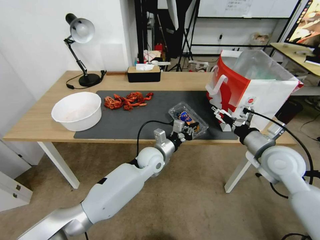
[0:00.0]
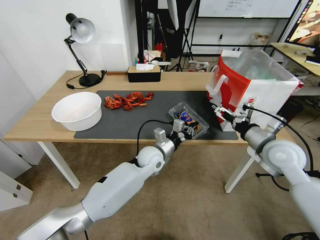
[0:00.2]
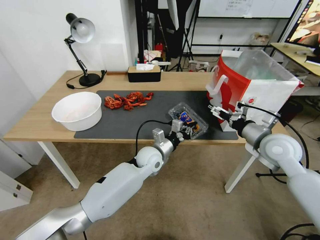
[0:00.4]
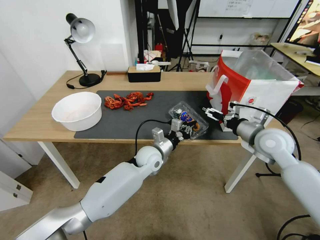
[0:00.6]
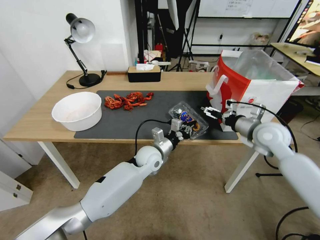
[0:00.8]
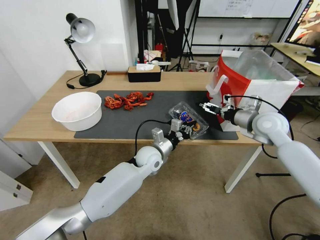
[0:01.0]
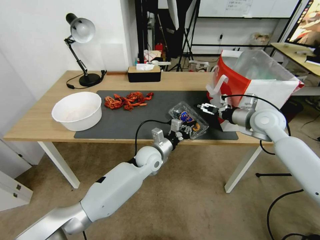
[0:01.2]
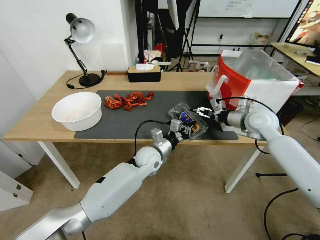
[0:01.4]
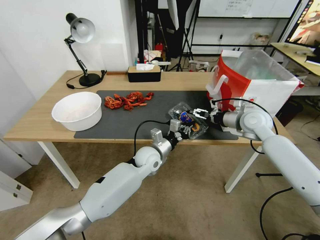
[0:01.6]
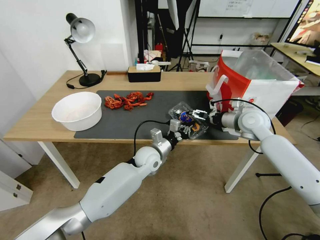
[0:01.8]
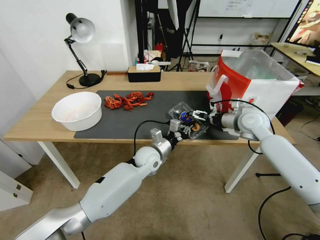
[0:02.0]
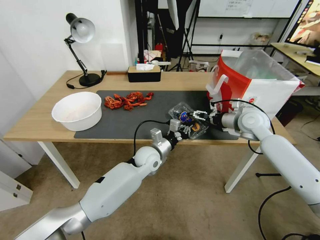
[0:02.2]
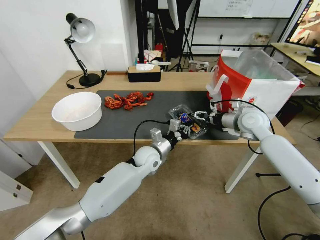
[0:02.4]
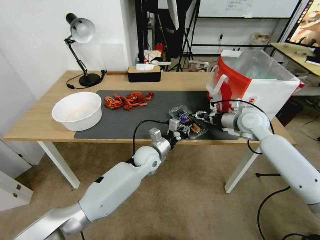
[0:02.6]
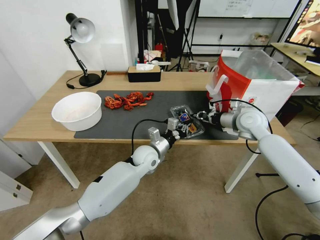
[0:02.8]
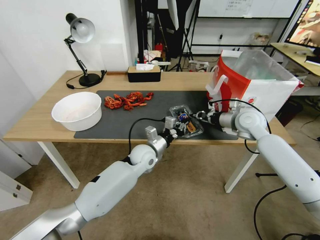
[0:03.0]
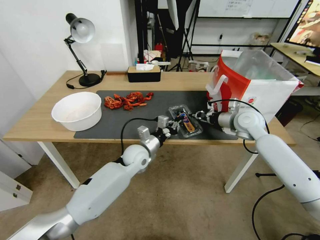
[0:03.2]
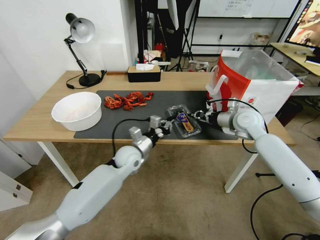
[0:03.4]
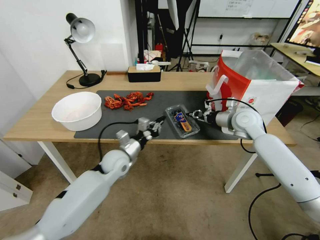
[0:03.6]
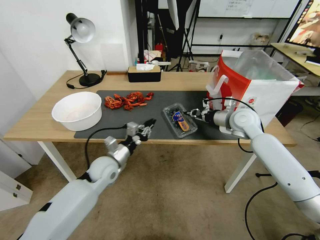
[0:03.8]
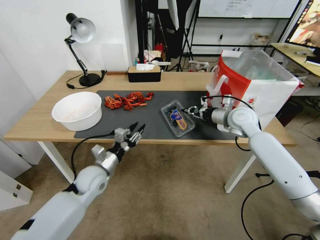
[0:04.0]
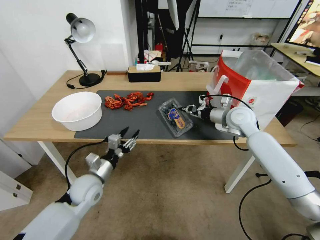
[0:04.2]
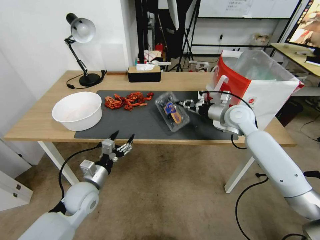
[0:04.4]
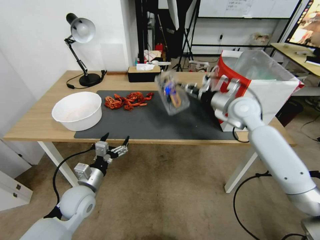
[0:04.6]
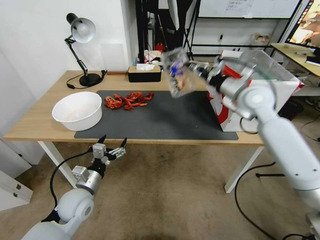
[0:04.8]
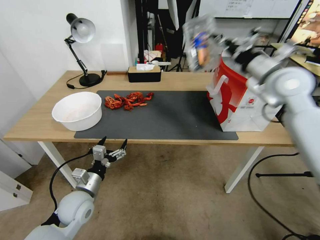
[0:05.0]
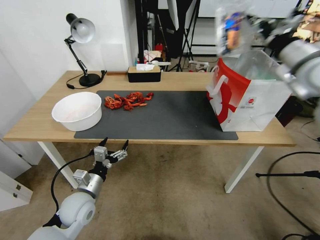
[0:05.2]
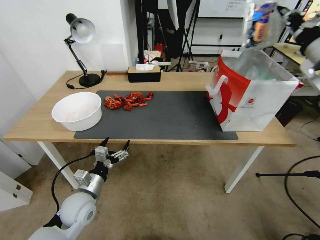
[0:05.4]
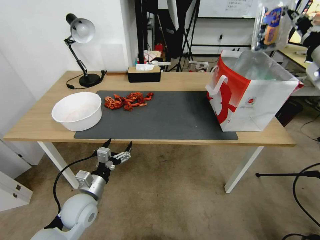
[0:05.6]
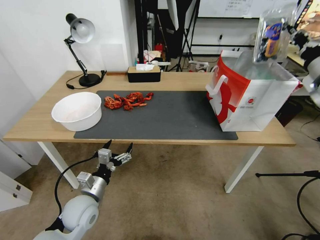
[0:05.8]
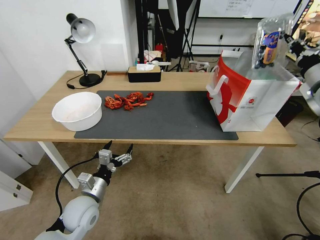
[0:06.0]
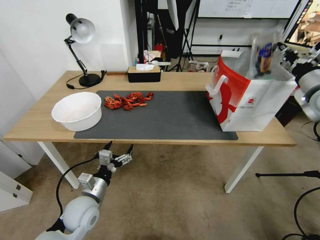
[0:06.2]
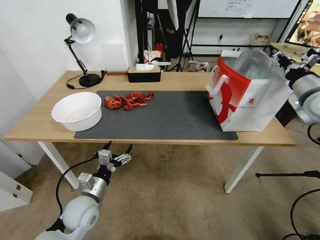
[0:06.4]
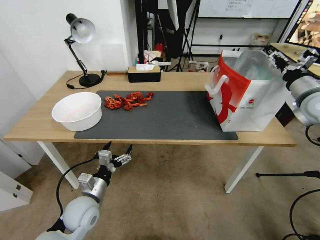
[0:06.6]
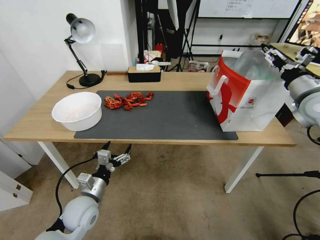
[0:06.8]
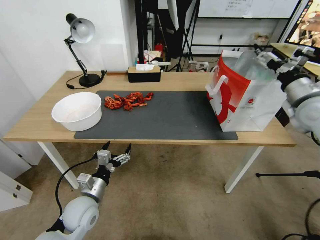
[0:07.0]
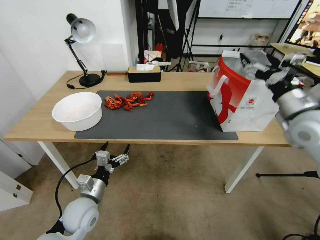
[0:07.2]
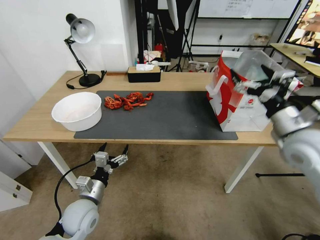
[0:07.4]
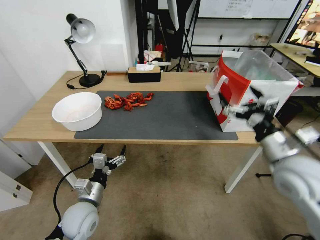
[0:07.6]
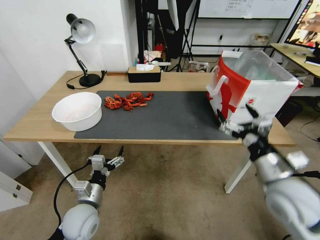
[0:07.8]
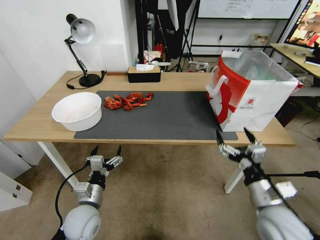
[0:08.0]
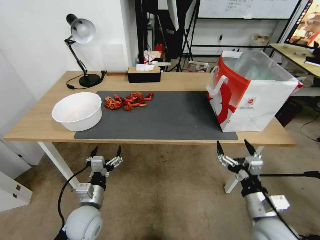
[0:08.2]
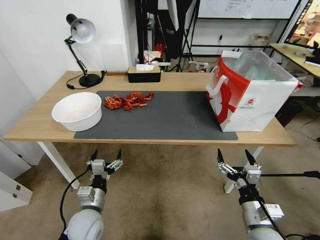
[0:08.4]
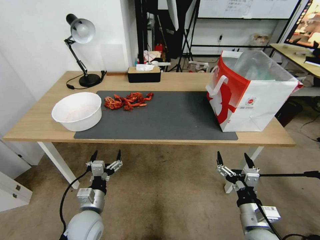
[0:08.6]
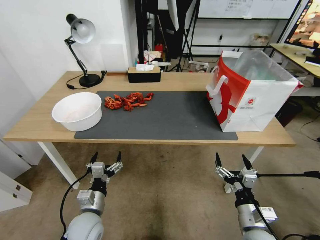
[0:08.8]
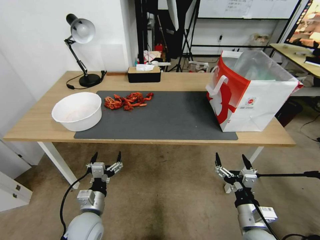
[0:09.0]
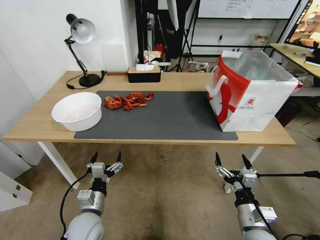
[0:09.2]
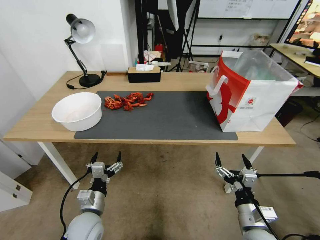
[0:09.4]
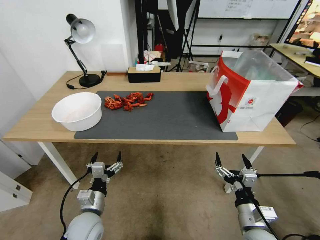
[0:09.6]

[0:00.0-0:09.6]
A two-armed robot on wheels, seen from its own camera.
Task of the whole recording: Close the takeout container lid, then place the container into the takeout bag.
0:00.0 to 0:01.6: The right gripper moves forward, some 15 cm.
0:01.6 to 0:03.2: The right gripper closes its fingers.
0:03.2 to 0:04.8: The left gripper goes roughly 25 cm to the left and backward, and opens up, while the right gripper travels upward by approximately 10 cm.
0:04.8 to 0:06.4: The right gripper moves to the right, approximately 15 cm, and opens its fingers.
0:06.4 to 0:08.0: The right gripper travels backward, downward and to the left by roughly 35 cm, and opens up.
0:08.0 to 0:09.6: The right gripper shifts about 10 cm downward.
